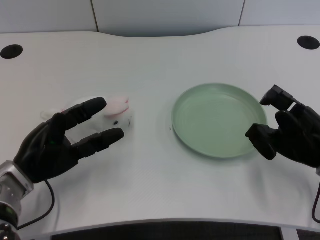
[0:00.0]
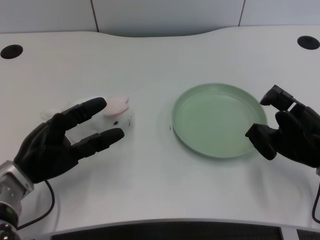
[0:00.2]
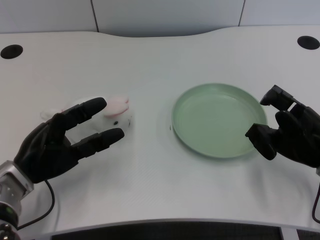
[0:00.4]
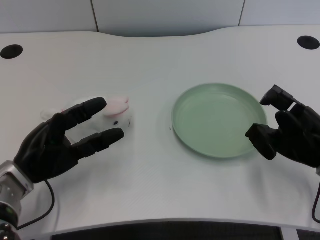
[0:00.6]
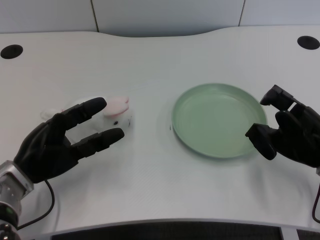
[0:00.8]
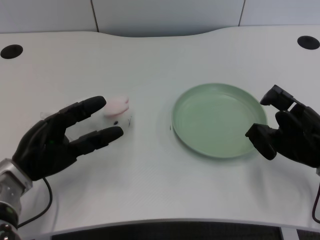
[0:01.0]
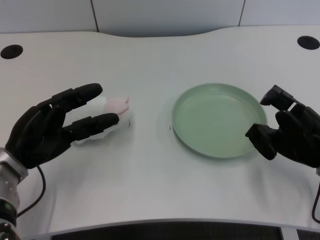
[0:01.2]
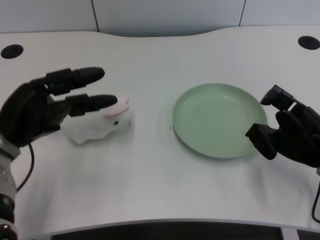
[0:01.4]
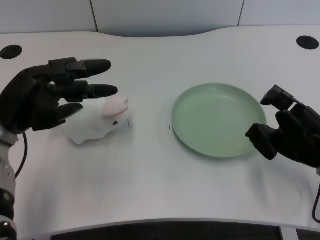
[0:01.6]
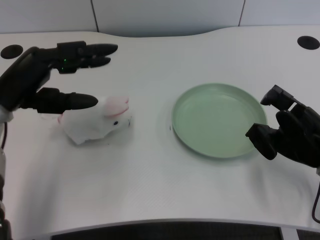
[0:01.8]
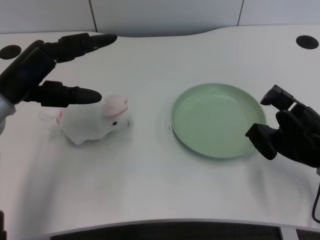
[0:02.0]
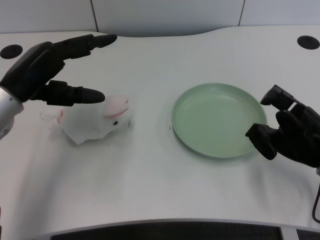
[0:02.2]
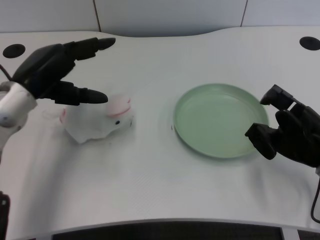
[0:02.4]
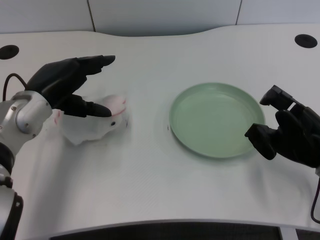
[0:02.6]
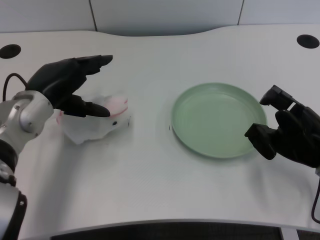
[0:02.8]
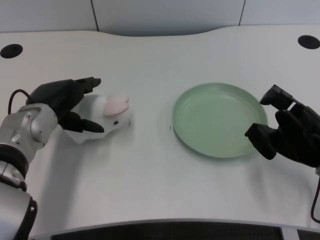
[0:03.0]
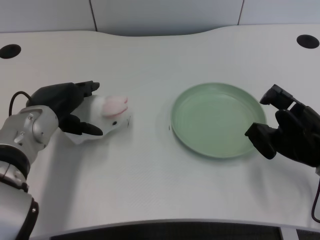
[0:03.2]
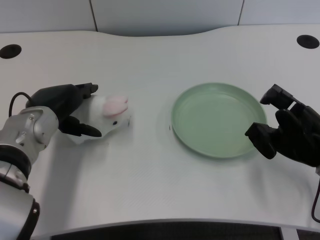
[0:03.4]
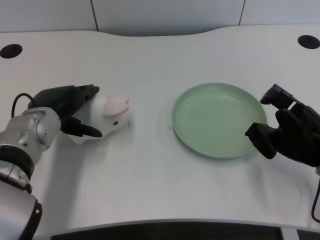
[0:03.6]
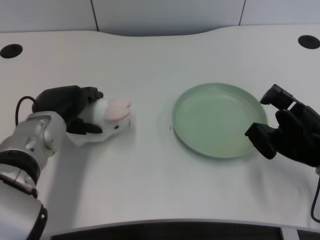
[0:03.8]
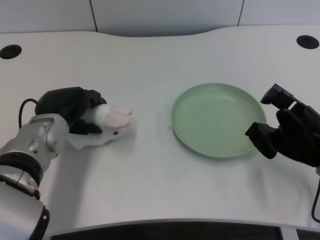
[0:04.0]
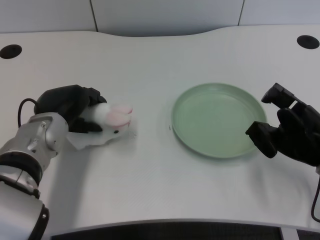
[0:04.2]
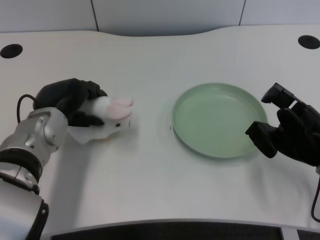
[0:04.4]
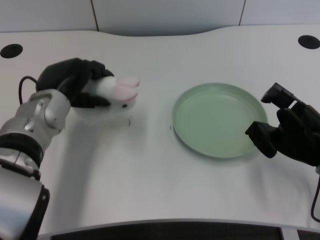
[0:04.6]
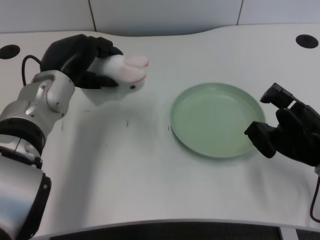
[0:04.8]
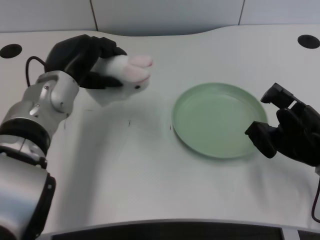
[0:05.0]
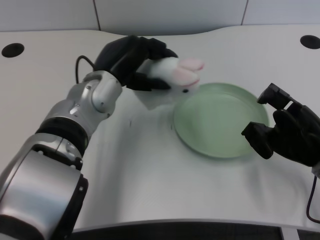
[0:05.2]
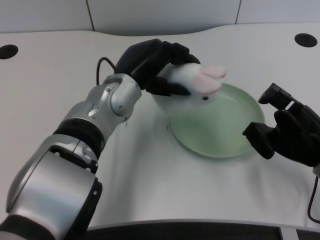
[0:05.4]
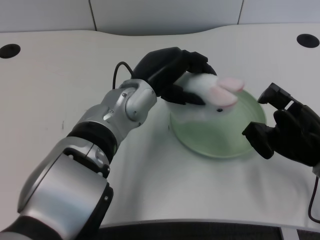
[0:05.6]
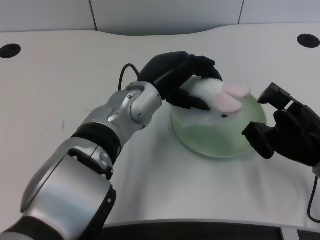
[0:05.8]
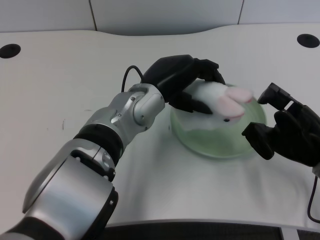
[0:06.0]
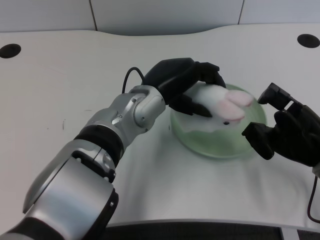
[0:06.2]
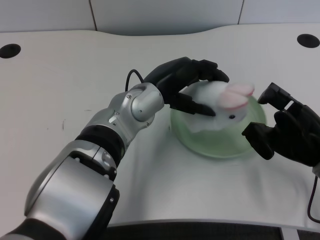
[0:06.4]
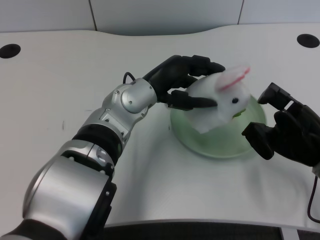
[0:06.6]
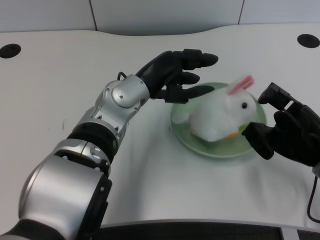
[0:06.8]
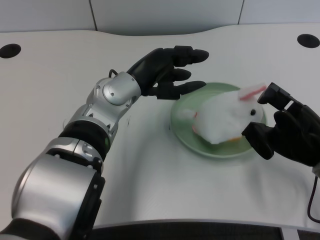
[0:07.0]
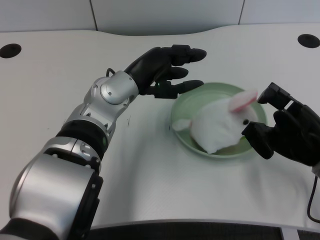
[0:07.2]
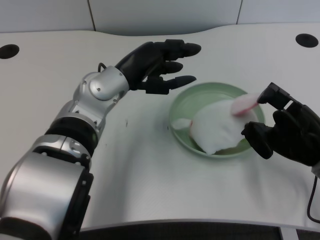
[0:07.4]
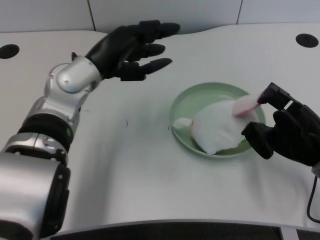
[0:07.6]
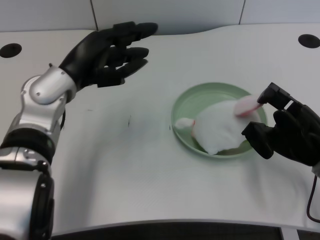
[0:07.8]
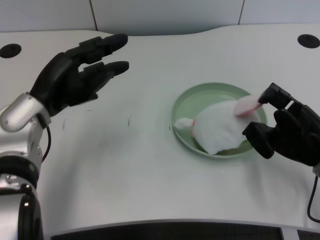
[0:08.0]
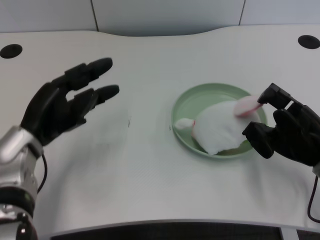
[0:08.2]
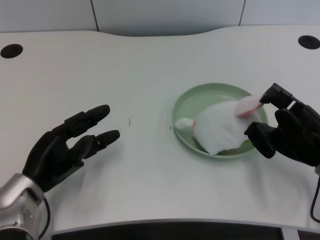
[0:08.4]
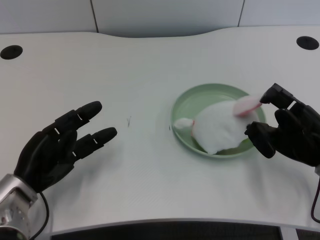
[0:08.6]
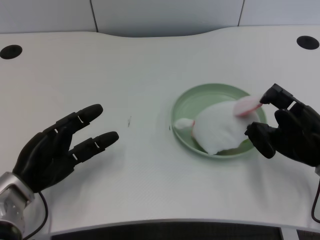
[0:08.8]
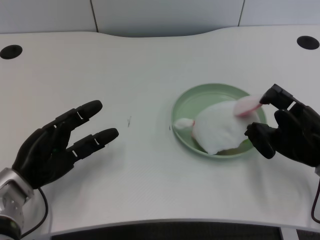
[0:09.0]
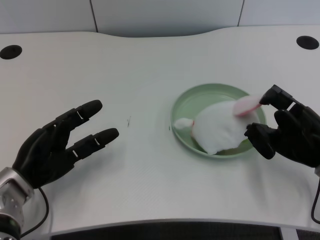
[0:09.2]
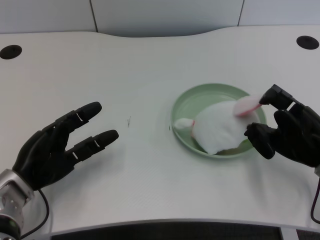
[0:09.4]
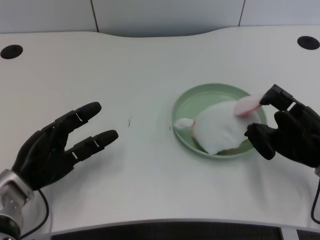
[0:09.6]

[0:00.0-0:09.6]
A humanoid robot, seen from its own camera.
Task of the whole recording: pick up the rabbit doll from the table and place it on the plate.
Step, 0:01.2 to 0:04.2: Grasp the rabbit doll with the left gripper.
Step, 0:04.4 to 0:06.8: Place the rabbit doll into the plate with the left gripper.
0:01.6 to 0:03.2: The left hand heads to the right, covering approximately 5 cm.
0:03.2 to 0:04.8: The left hand shifts by roughly 5 cm.
0:04.8 to 0:06.4: The left hand moves to the right, some 10 cm.
0:06.4 to 0:08.0: The left hand shifts about 15 cm to the left.
0:08.0 to 0:09.6: The left hand is displaced downward and backward by roughly 10 cm.

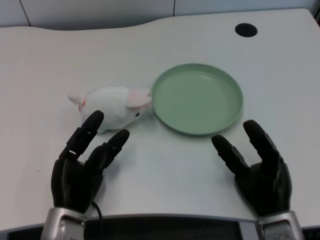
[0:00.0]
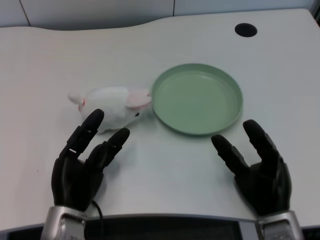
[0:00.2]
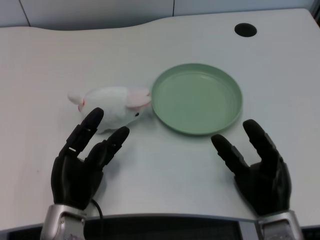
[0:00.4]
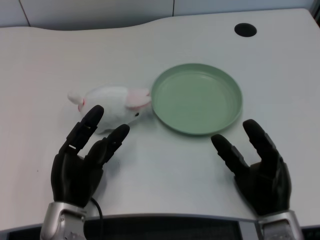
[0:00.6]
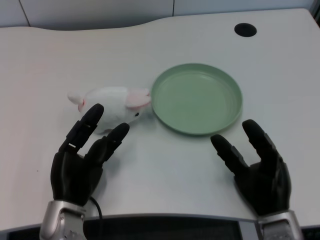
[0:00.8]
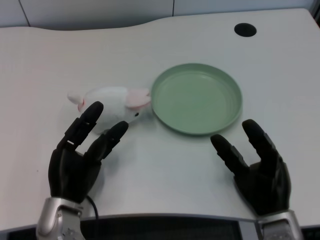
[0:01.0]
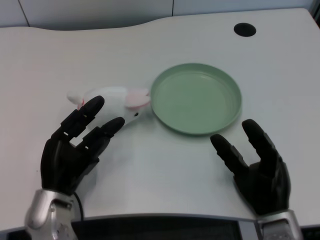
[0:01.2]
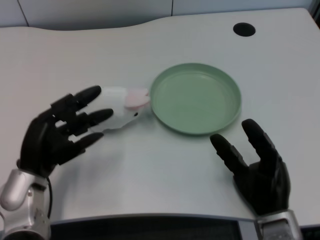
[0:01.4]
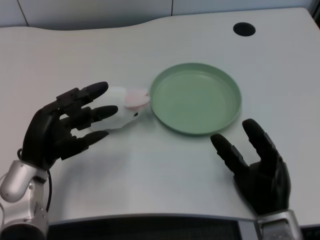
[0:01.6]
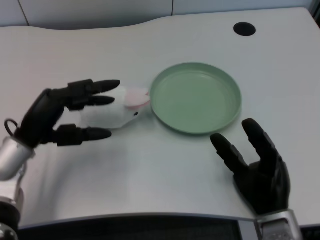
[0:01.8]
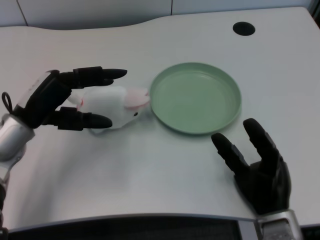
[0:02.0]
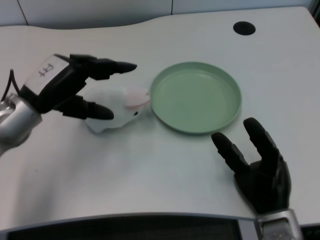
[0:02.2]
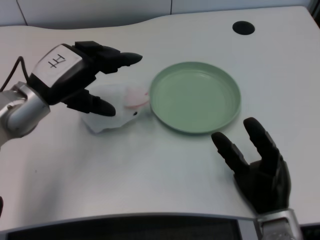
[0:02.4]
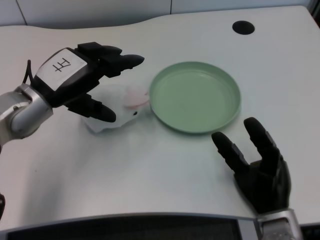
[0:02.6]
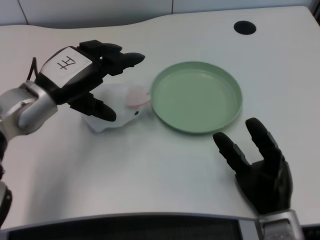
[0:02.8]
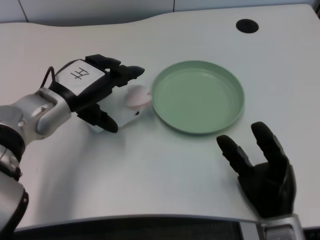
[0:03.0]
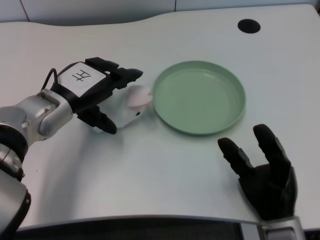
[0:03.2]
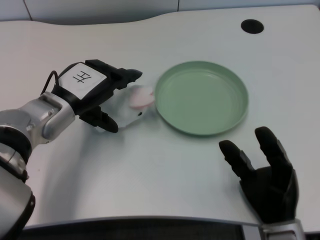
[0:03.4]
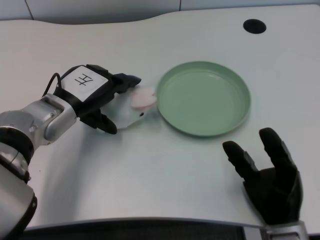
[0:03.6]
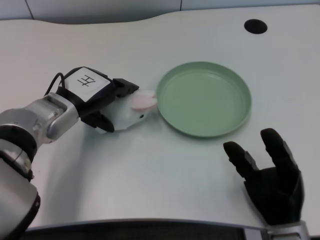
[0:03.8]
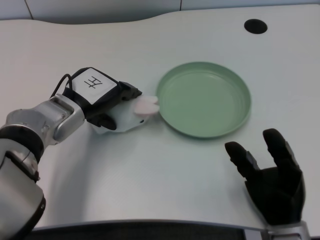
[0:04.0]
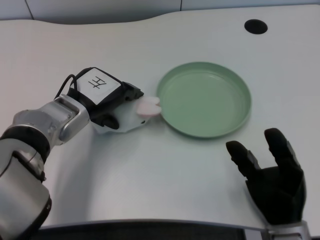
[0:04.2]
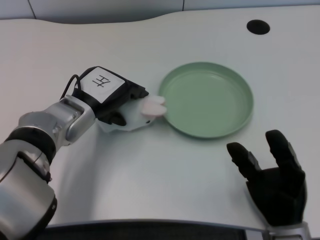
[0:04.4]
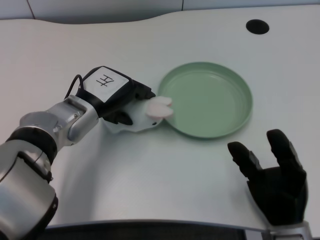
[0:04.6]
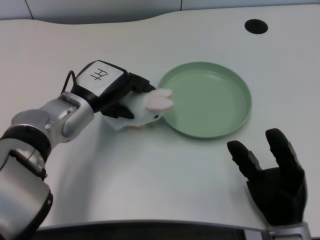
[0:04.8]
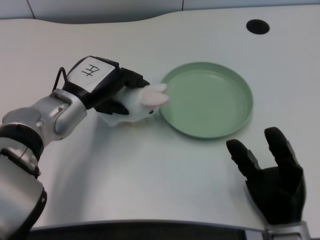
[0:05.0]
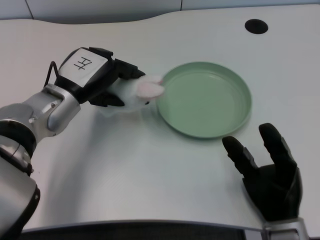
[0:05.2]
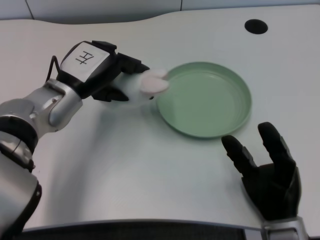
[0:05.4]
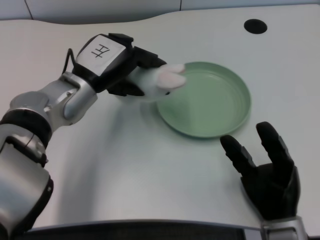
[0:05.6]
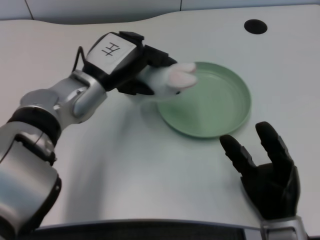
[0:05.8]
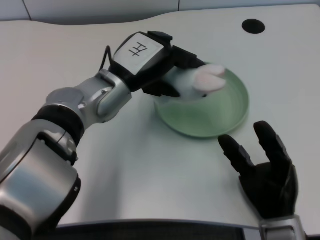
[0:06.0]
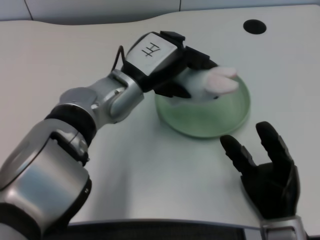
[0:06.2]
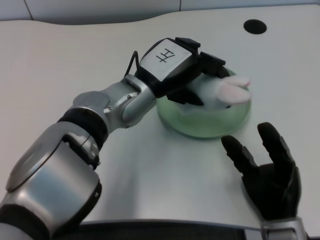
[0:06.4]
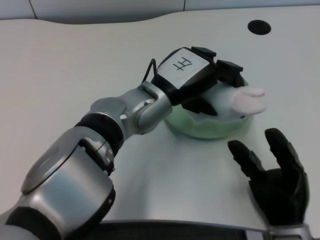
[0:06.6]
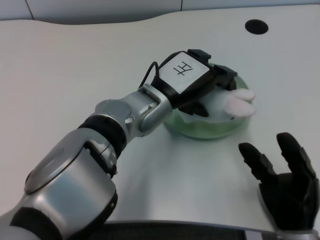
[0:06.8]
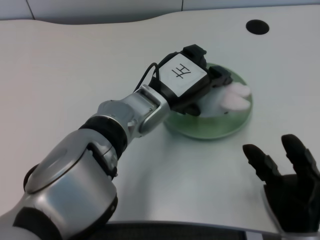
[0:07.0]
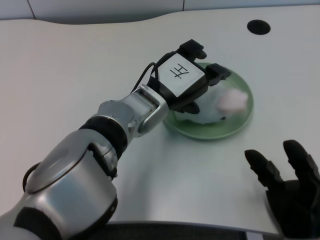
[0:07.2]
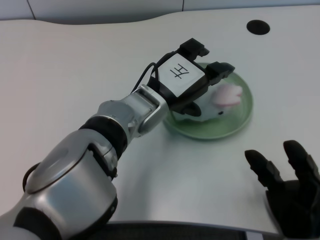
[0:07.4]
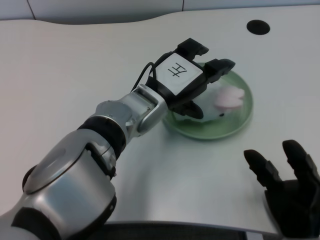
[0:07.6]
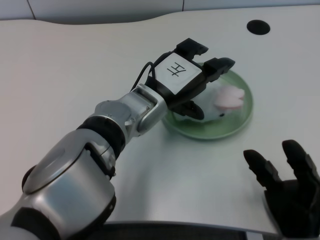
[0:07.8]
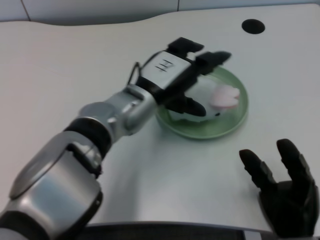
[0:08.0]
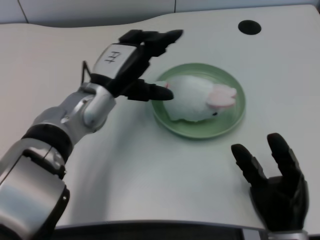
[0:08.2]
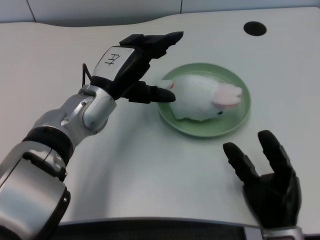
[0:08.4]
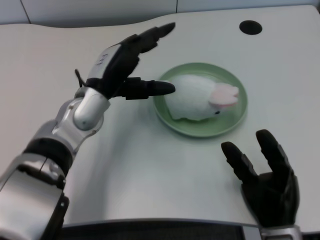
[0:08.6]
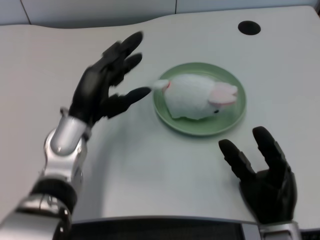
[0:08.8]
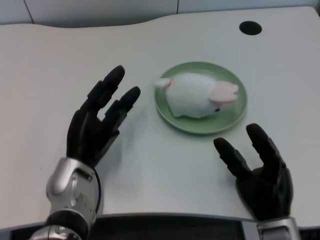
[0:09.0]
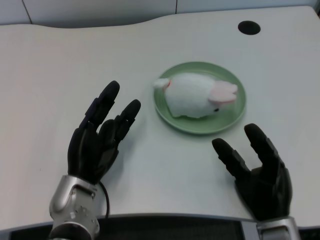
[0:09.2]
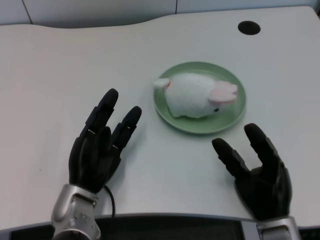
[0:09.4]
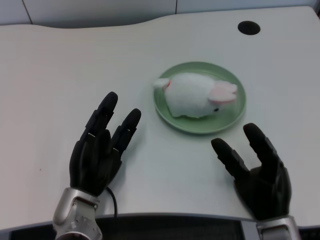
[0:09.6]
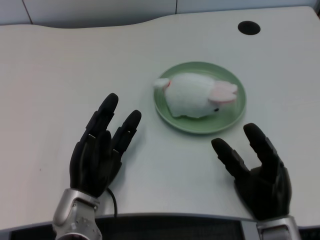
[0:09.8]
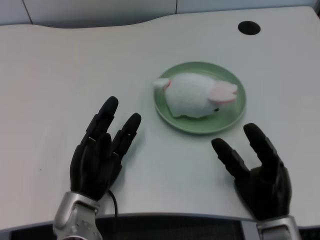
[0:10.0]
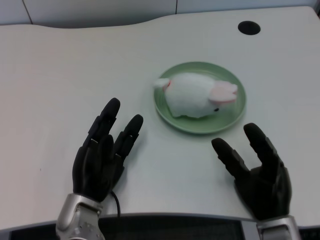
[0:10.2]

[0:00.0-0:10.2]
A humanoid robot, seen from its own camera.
Task of the whole recording: pick up the rabbit doll from the table and place it on the plate.
Step, 0:01.0 to 0:05.0: Grasp the rabbit doll with the left gripper.
Step, 0:05.2 to 0:07.2: Place the rabbit doll into the plate with the left gripper.
0:01.4 to 0:03.0: The left hand moves forward and upward, roughly 10 cm.
0:05.8 to 0:07.2: The left hand shifts approximately 10 cm to the right.
0:07.2 to 0:08.8: The left hand is displaced to the left by about 10 cm.
0:08.8 to 0:10.2: The left hand moves downward and backward, about 10 cm.

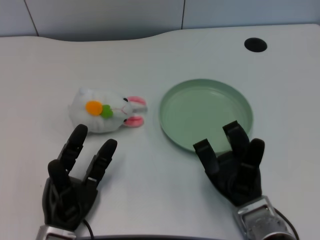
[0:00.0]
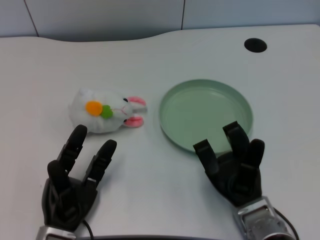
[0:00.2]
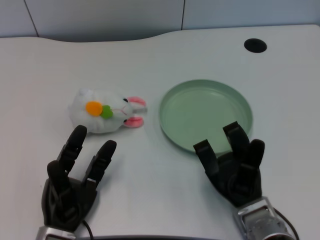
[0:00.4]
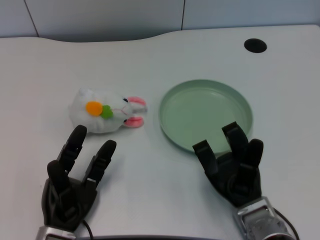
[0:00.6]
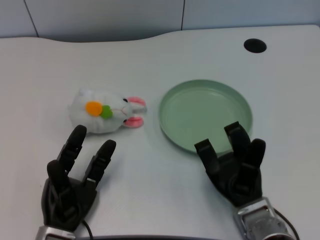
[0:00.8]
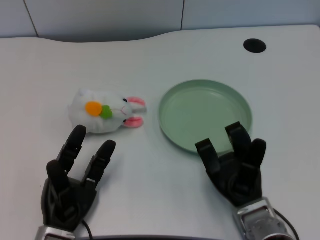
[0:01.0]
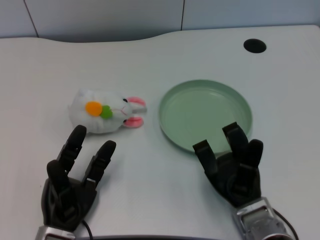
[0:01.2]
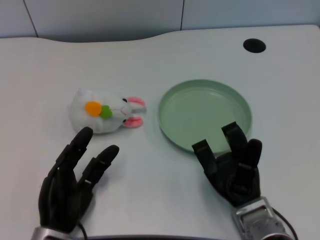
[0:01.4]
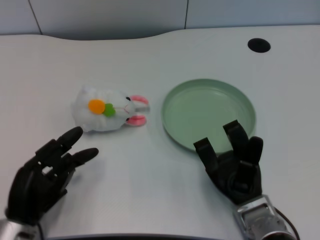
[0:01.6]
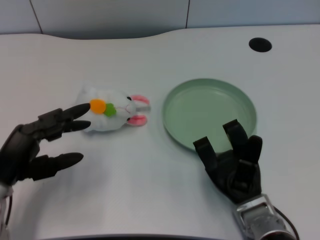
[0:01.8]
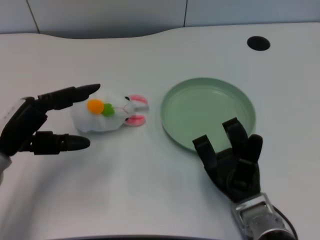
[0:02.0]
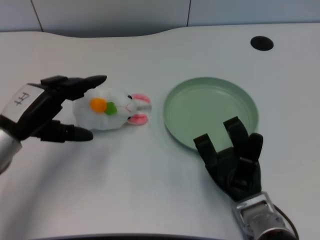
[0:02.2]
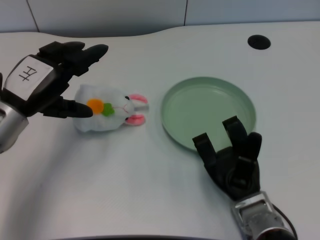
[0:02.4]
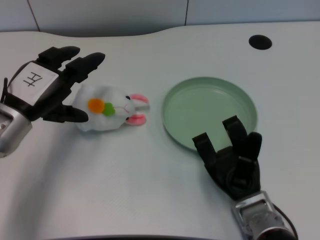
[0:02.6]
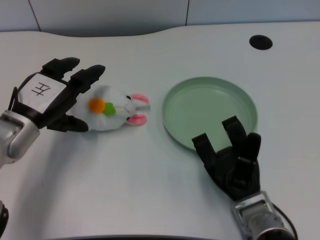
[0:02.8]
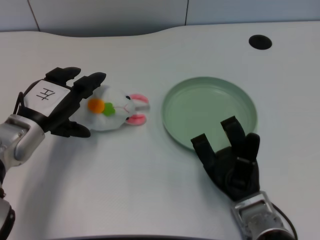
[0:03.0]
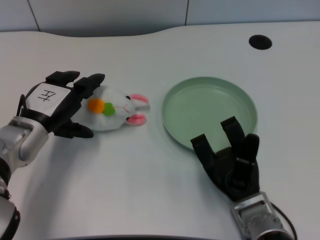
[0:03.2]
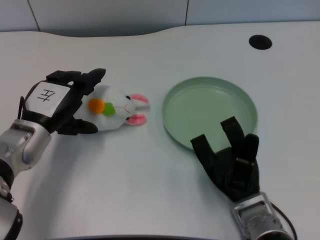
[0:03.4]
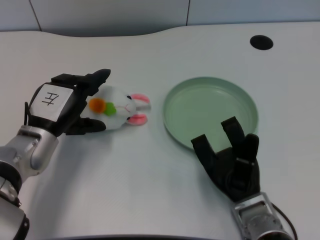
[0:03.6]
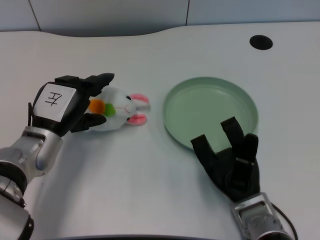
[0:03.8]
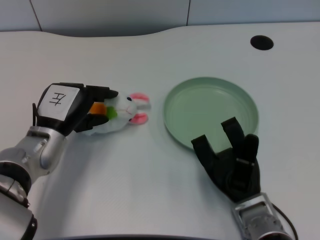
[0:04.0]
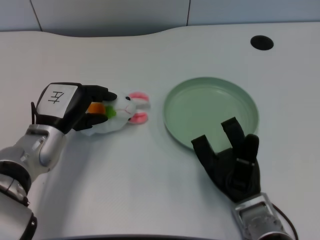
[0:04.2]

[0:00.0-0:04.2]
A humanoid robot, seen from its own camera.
Task of the whole recording: pick up the rabbit doll from the table and place it on the plate.
0:01.4 to 0:02.8: The left hand heads upward and forward, covering about 20 cm.
0:02.8 to 0:04.2: The hands move only a little.
